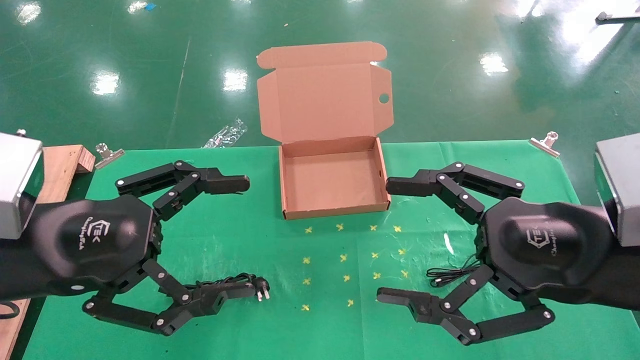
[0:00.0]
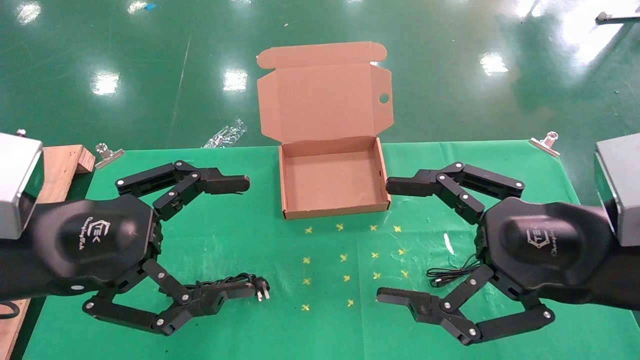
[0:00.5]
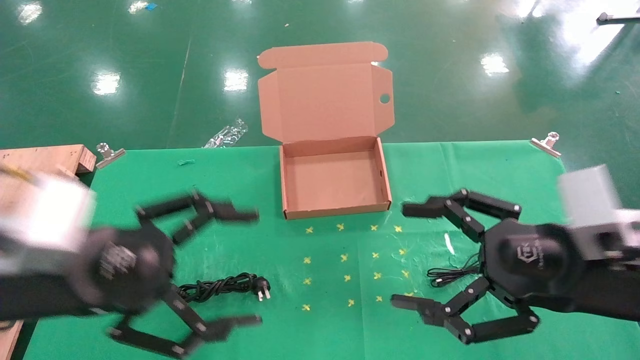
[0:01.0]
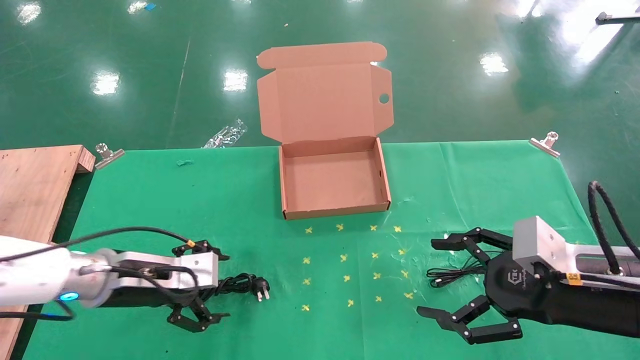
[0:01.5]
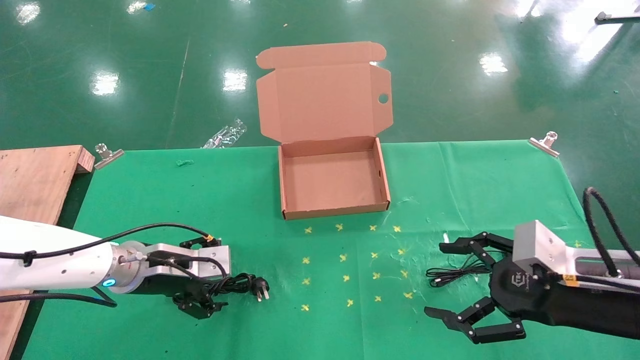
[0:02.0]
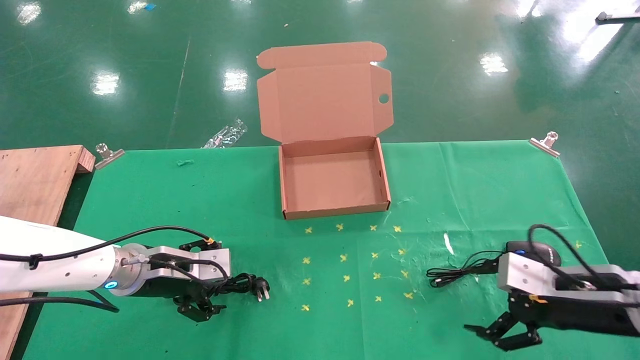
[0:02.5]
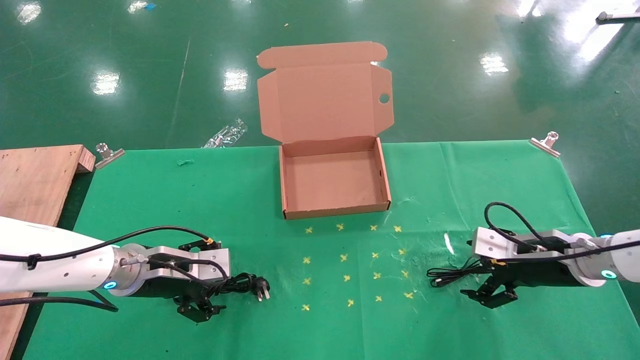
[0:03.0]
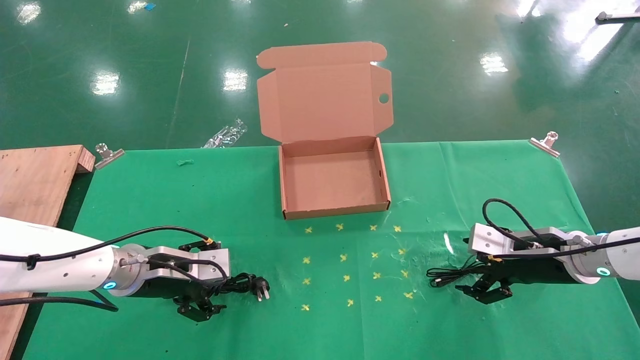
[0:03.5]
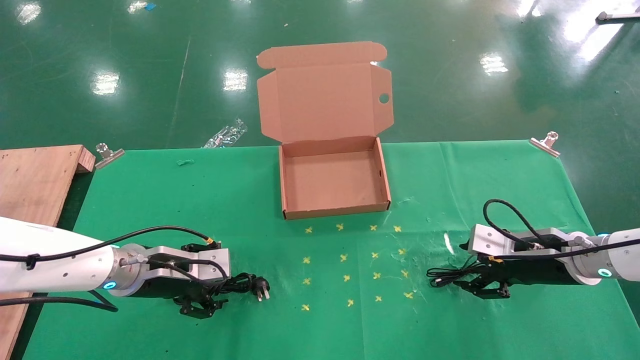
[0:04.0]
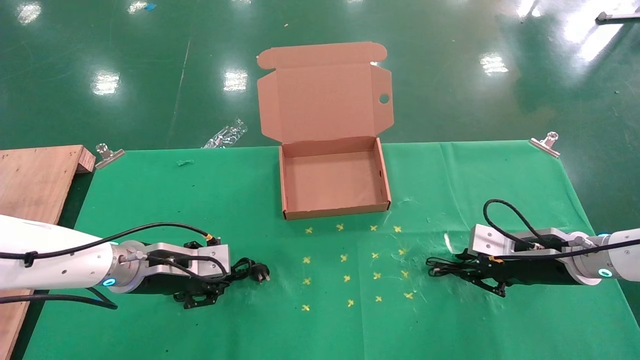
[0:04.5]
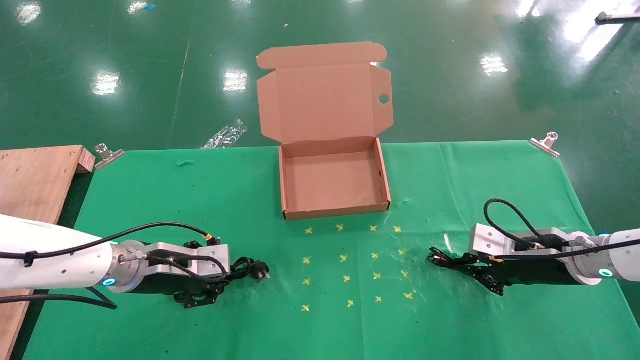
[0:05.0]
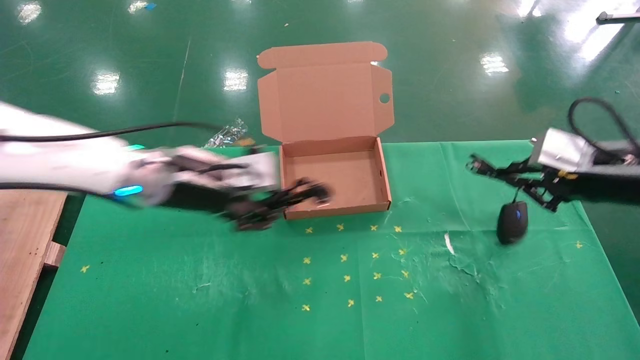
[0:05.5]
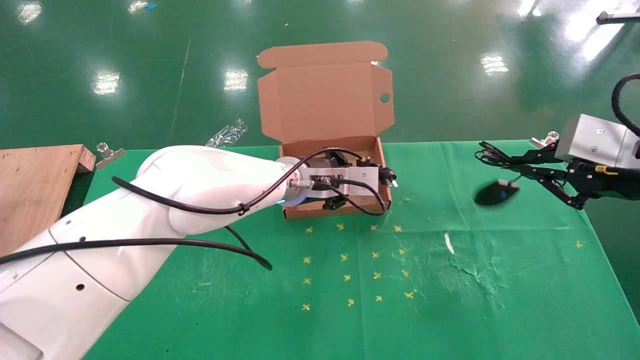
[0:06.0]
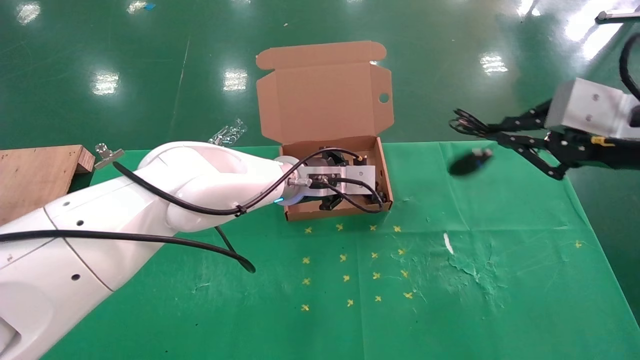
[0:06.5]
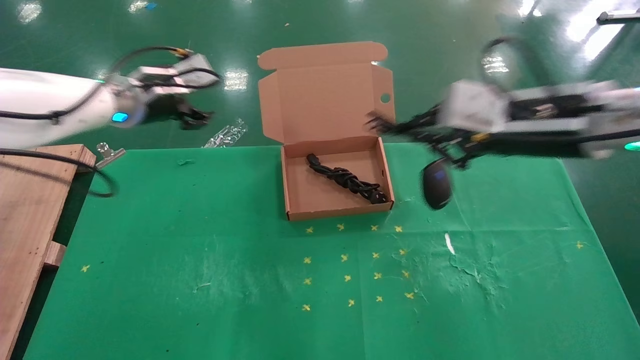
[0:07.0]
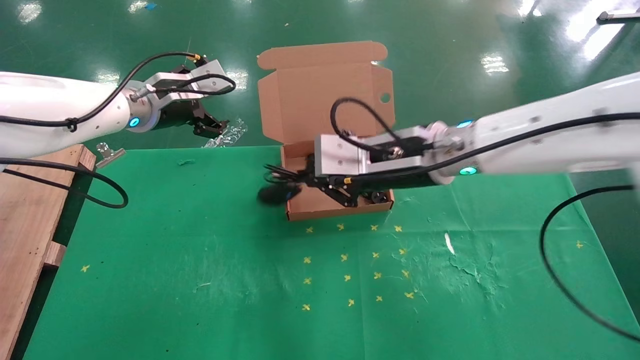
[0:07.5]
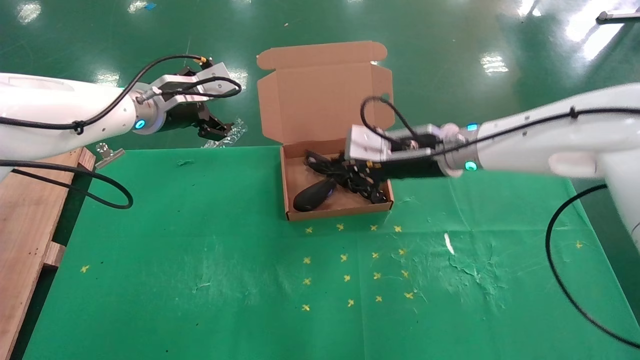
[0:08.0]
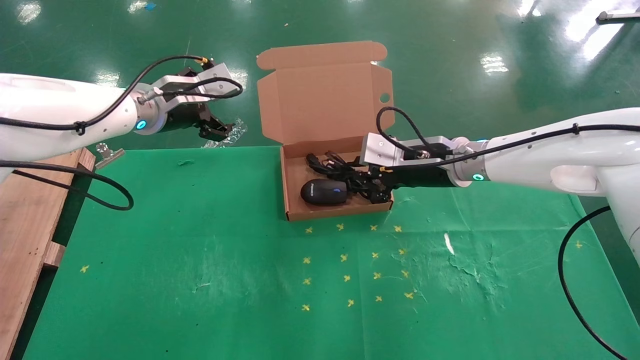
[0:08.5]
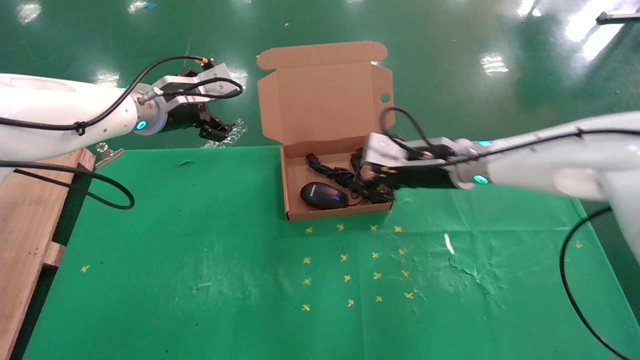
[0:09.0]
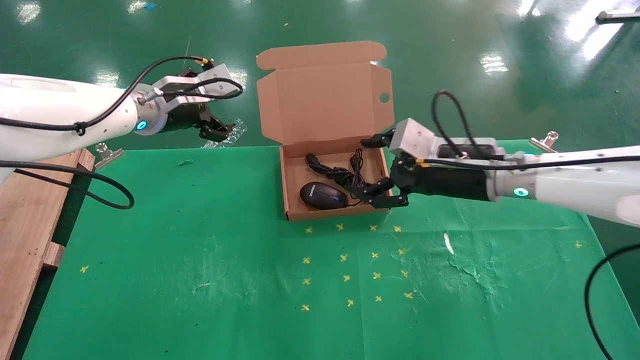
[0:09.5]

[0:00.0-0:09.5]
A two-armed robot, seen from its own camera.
Task of the whole recording: grasp data cable left put into box grasp mouse right put into box.
Step, 0:01.5 to 0:04.5: Simultaneously pick up the mouse and power cord from the accessory packaging area.
Step, 0:05.0 to 0:08.5: Place the mouse and power cord into the box.
0:00.0 to 0:02.0: The left gripper goes roughly 25 cm forward and downward. Meanwhile the right gripper is displaced downward, to the right and forward by roughly 15 cm.
0:02.0 to 0:04.0: The right gripper heads forward, covering some 15 cm.
0:04.0 to 0:05.5: The left gripper goes approximately 15 cm upward and to the right, and closes up. The right gripper heads upward, covering about 15 cm, and closes up.
0:05.5 to 0:07.5: The right gripper heads to the left, covering some 25 cm. Meanwhile the left gripper moves upward, forward and to the left, approximately 15 cm, and opens up.
0:07.5 to 0:09.5: The right gripper travels to the right by approximately 5 cm, and opens its fingers.

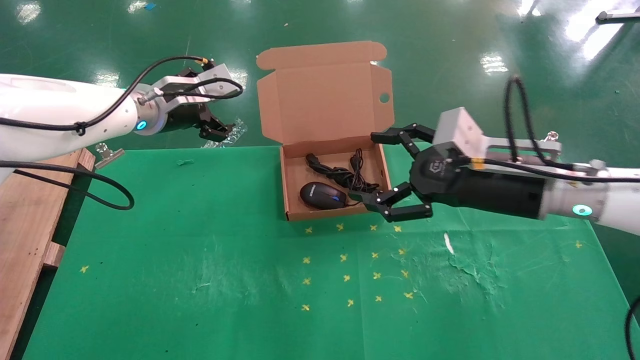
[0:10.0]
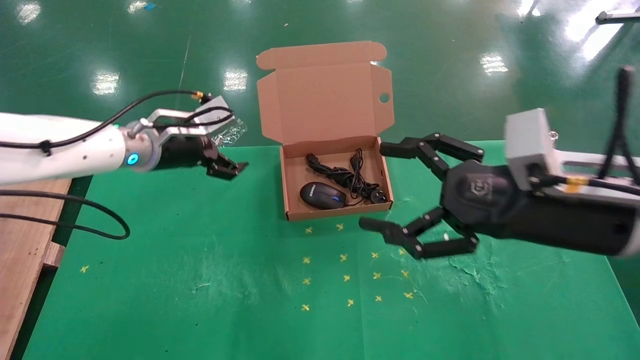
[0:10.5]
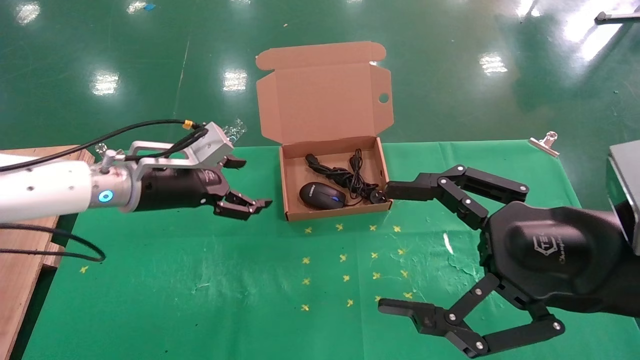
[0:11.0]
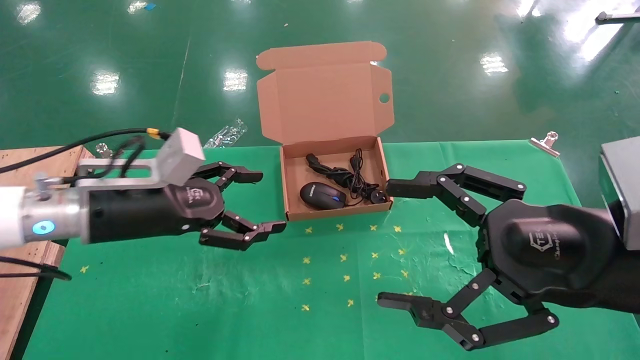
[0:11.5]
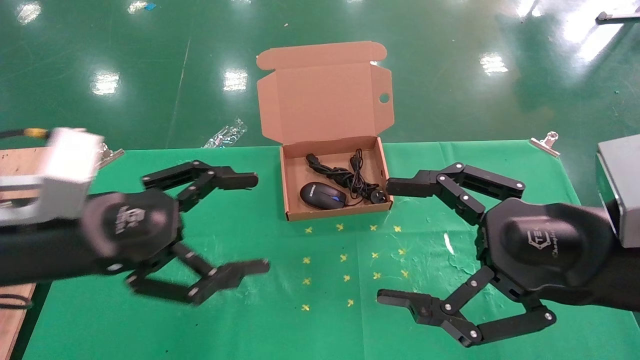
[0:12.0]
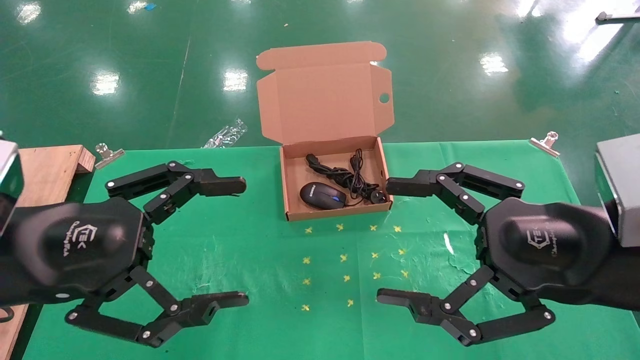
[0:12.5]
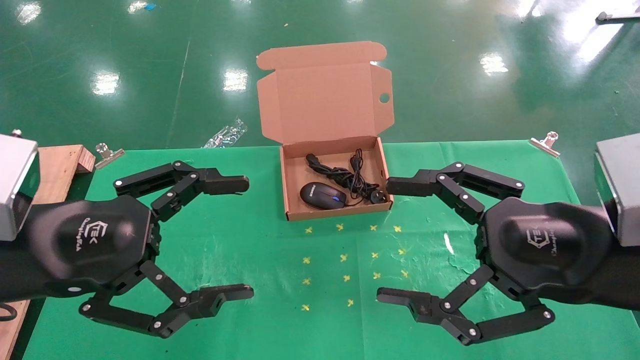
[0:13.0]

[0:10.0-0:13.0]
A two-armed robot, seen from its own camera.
Task of the whole recording: grasp data cable left put into box grasp mouse right put into box.
0:10.0 to 0:11.5: The left gripper is displaced backward and downward by approximately 15 cm; the right gripper goes roughly 15 cm backward.
0:11.5 to 0:13.0: The left gripper moves backward, some 10 cm.
